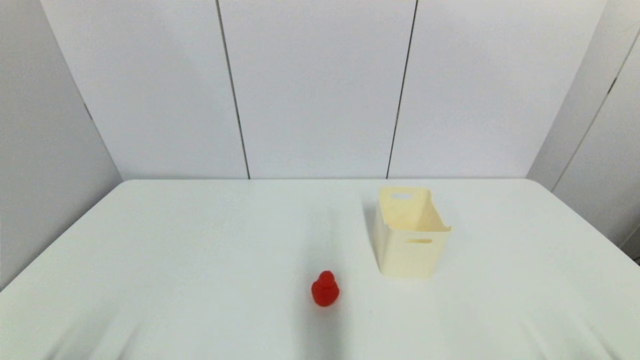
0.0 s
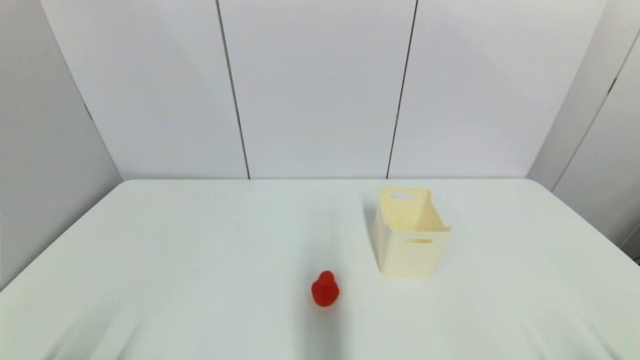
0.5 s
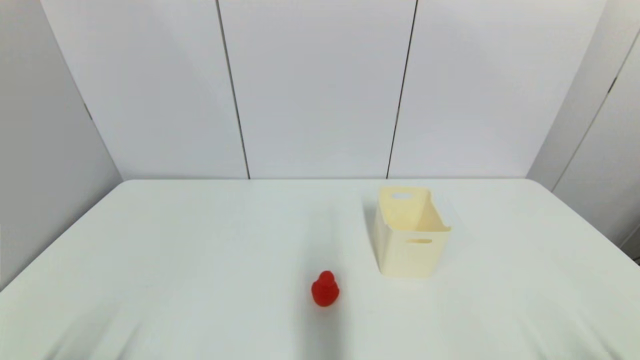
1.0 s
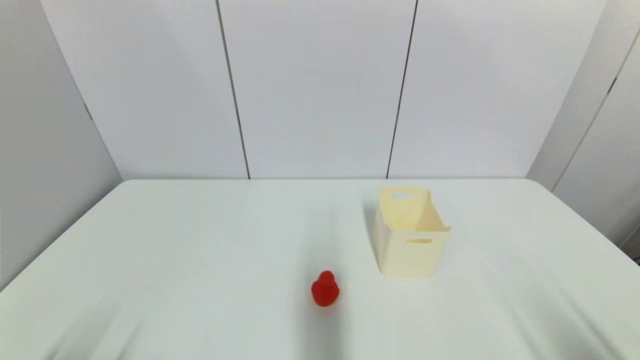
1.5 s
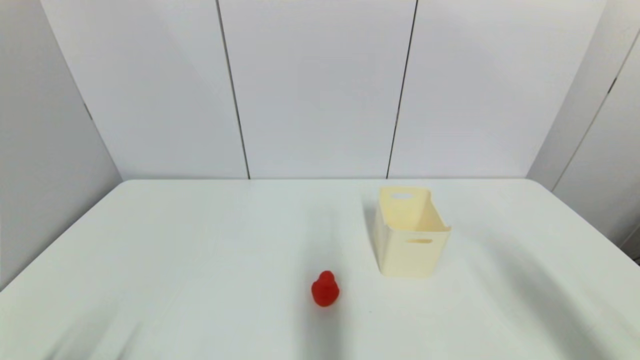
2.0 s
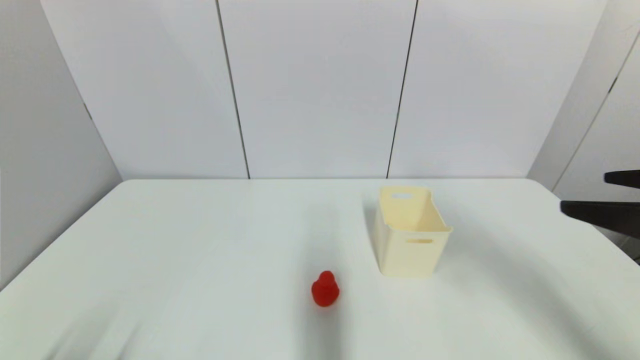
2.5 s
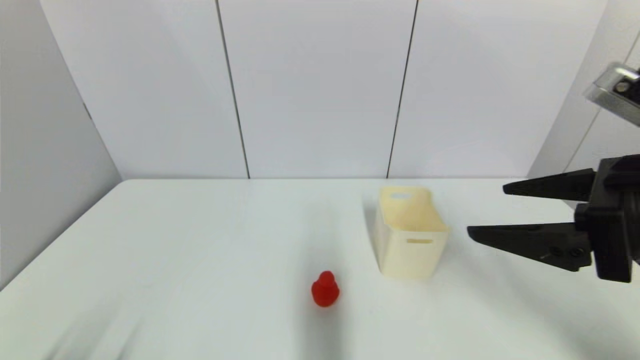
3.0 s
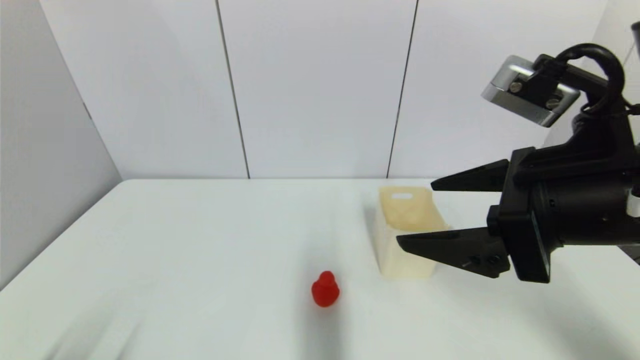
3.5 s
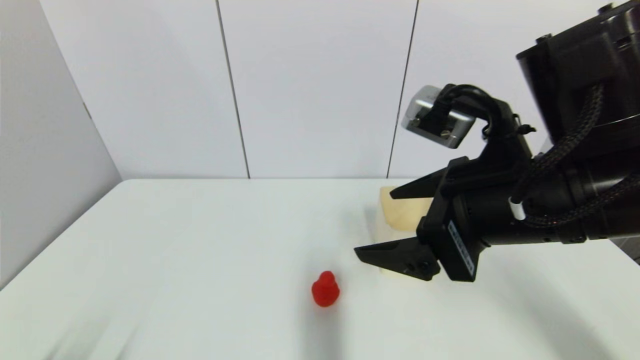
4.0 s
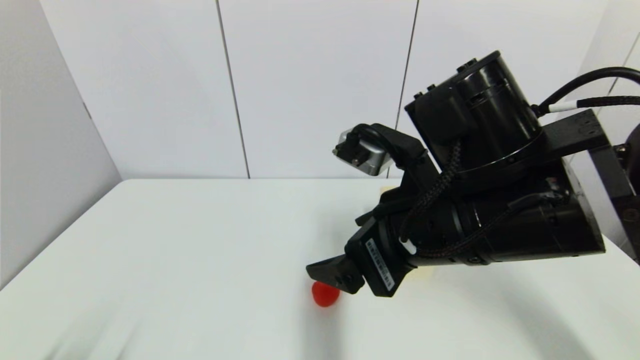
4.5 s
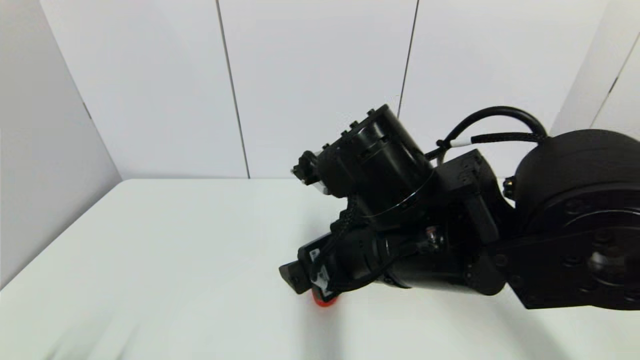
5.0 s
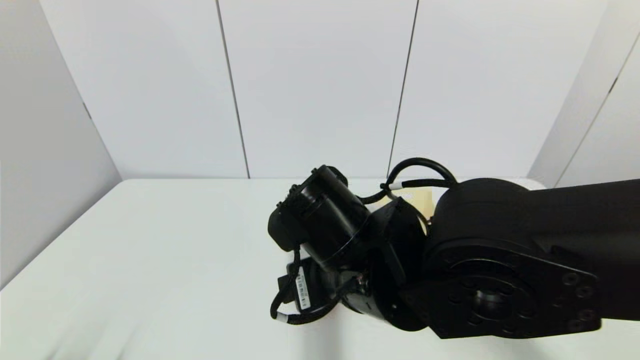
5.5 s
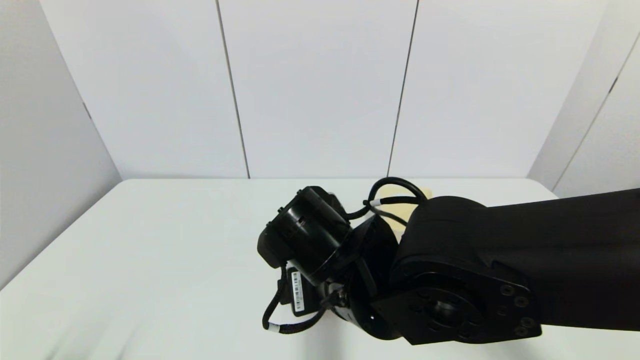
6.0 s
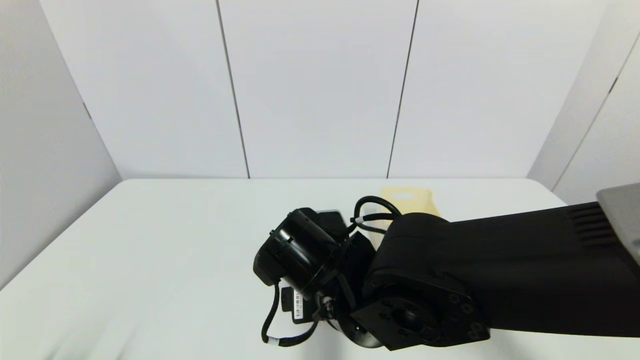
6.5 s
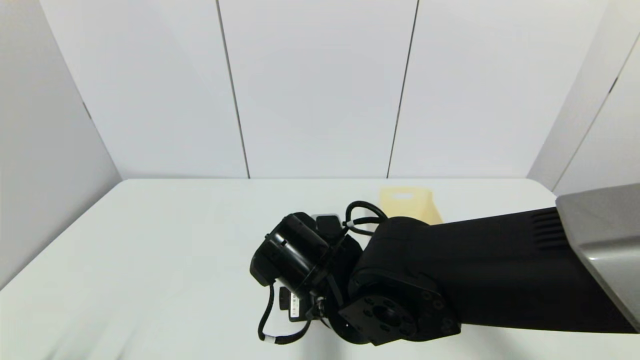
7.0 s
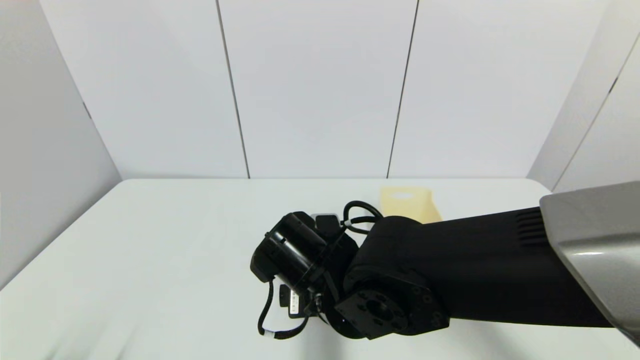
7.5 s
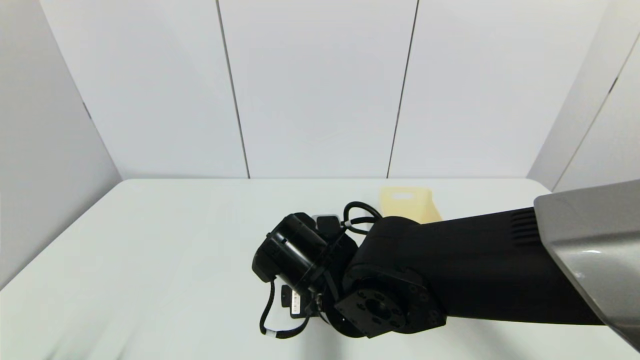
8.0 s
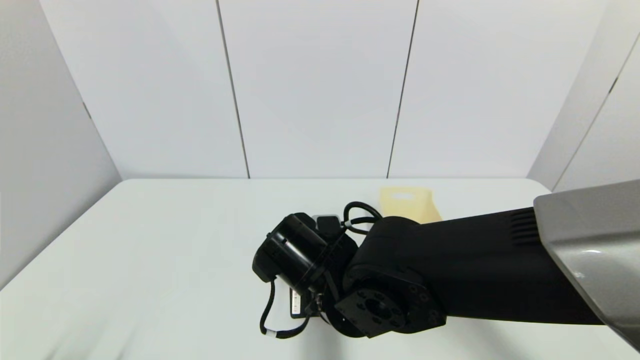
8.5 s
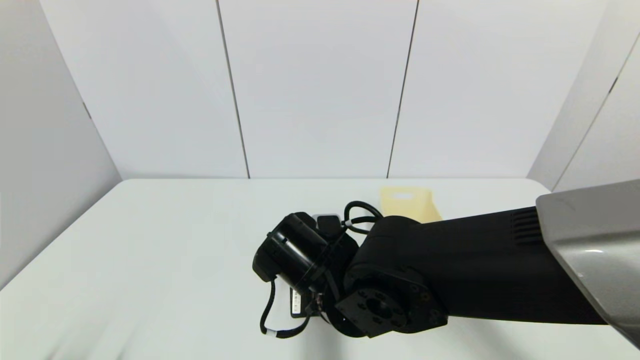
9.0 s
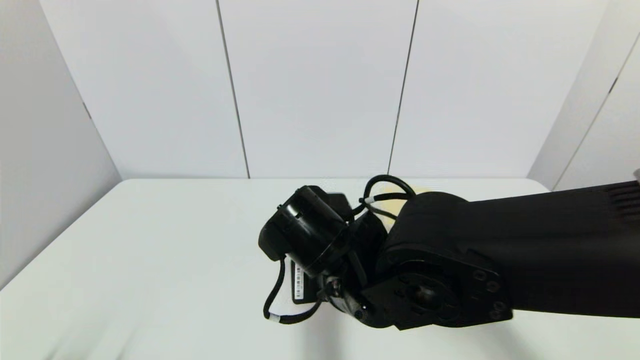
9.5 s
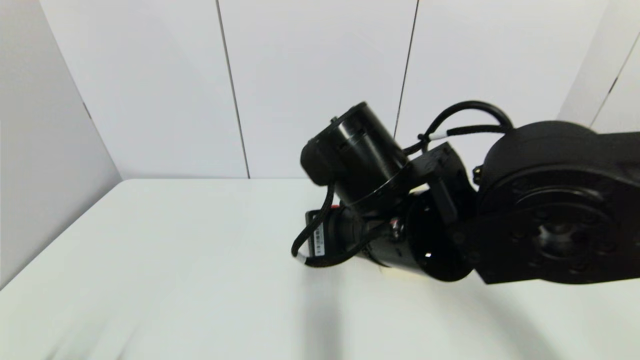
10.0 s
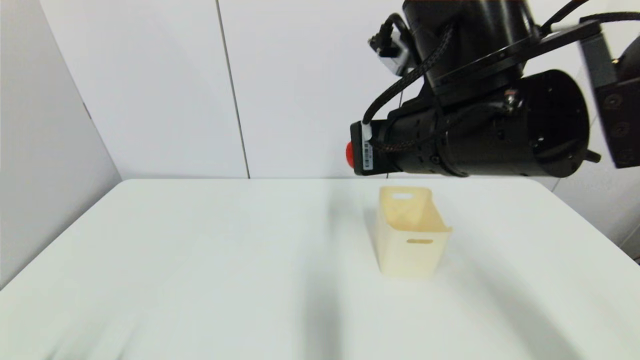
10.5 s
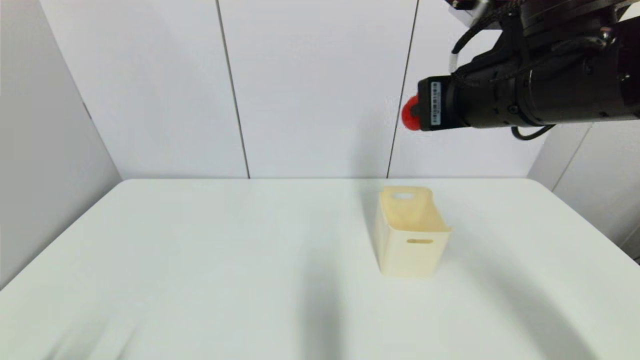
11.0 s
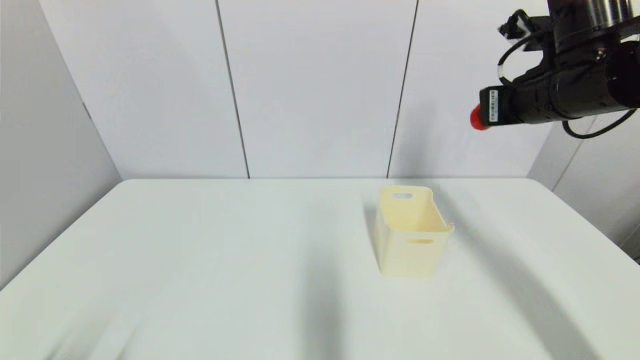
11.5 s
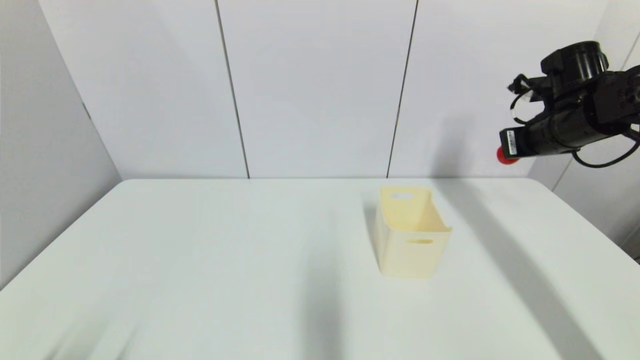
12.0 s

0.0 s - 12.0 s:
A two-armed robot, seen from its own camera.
Step, 2.5 s - 9.5 s: Grasp the red duck with right gripper.
0.0 s - 2.0 s: The right gripper moves upward, roughly 20 cm.
2.0 s - 4.0 s: The right gripper shifts roughly 25 cm to the left and forward.
4.0 s - 6.0 s: The right gripper goes about 15 cm to the left and downward.
6.0 s - 8.0 s: The grippers stay close to where they were, moving slightly.
8.0 s - 10.0 s: The right gripper travels upward by roughly 10 cm, and closes its fingers.
10.0 s - 12.0 s: The right gripper travels to the right and forward by some 35 cm.

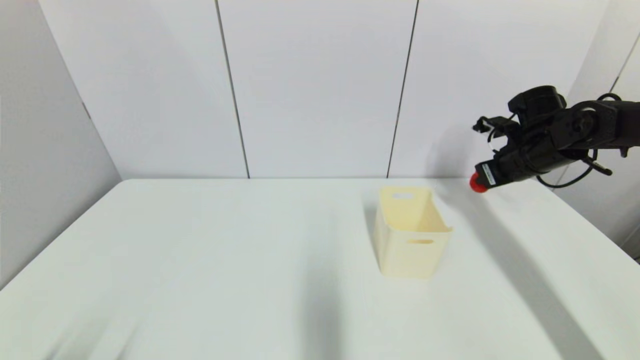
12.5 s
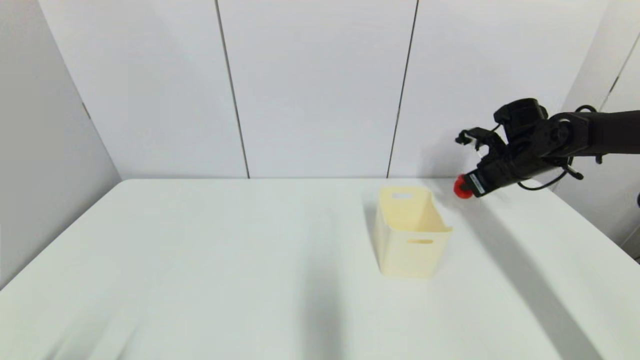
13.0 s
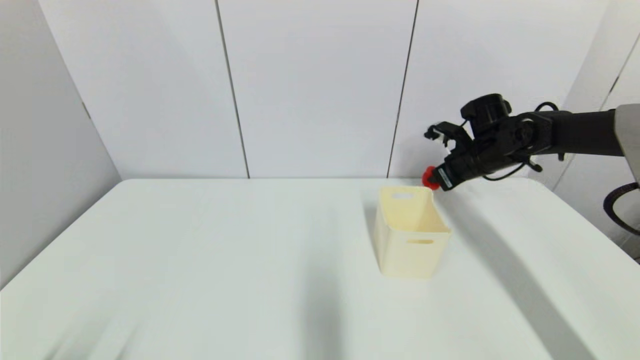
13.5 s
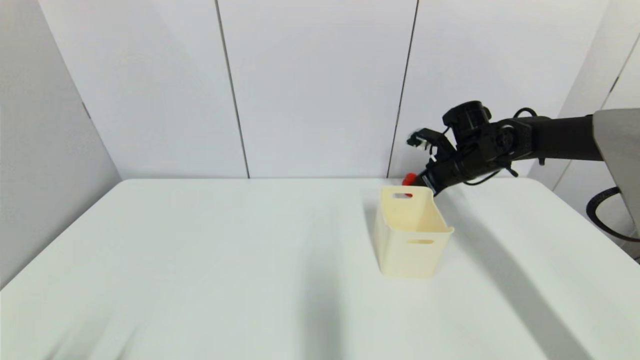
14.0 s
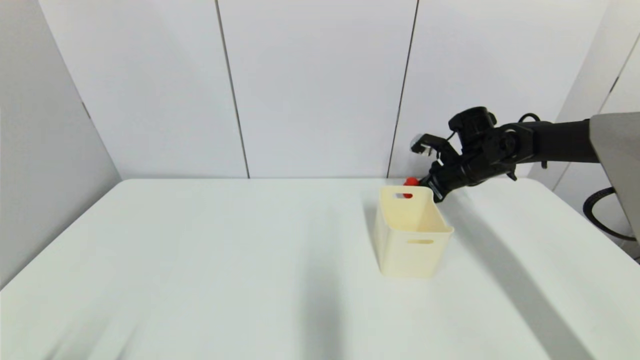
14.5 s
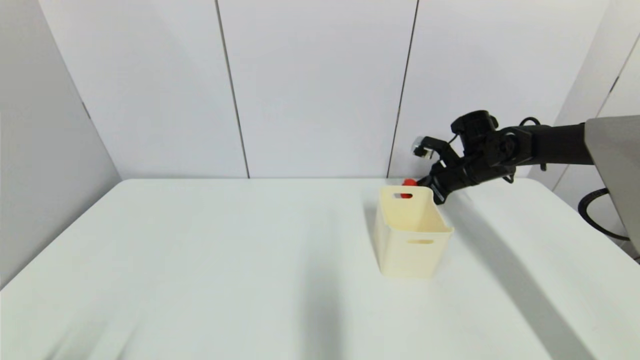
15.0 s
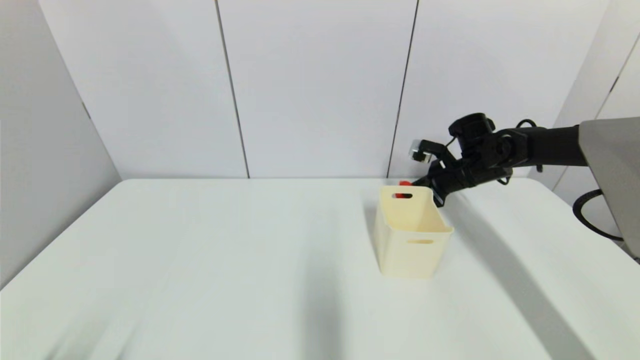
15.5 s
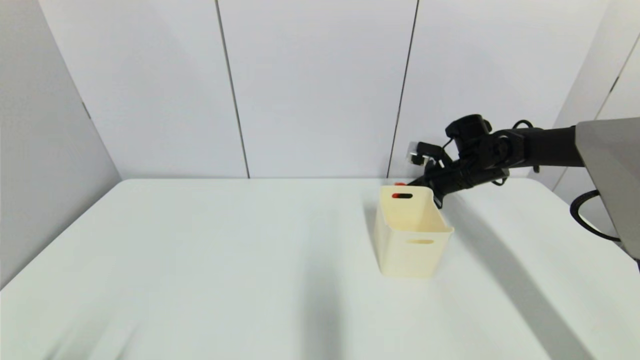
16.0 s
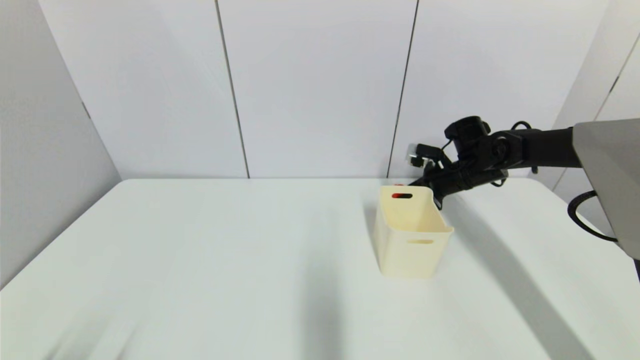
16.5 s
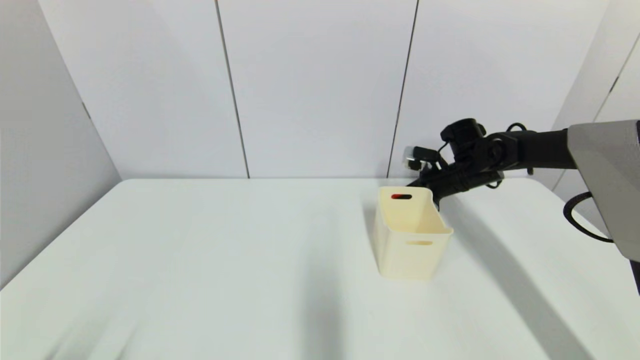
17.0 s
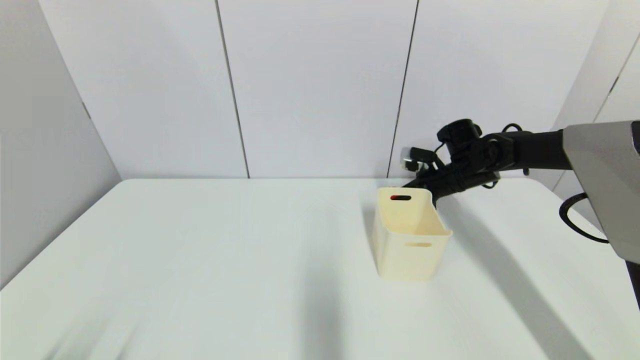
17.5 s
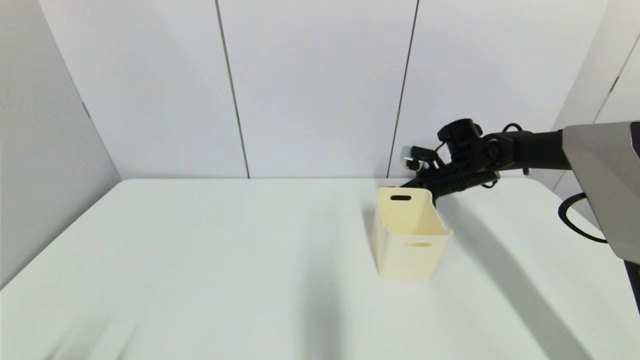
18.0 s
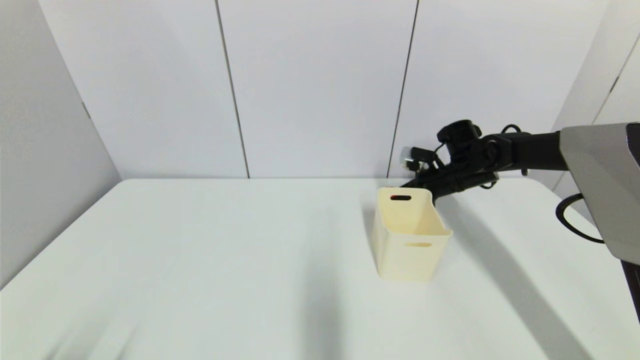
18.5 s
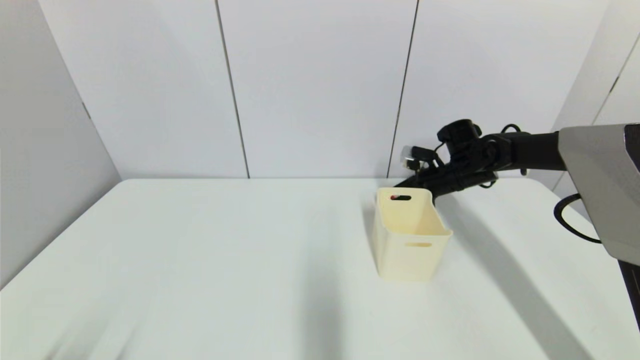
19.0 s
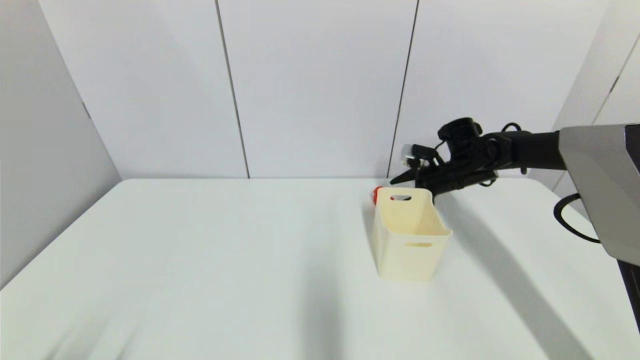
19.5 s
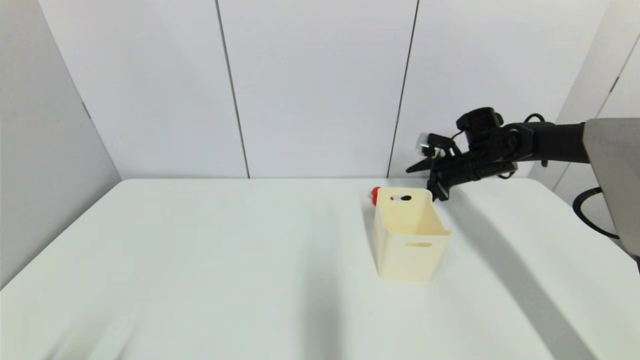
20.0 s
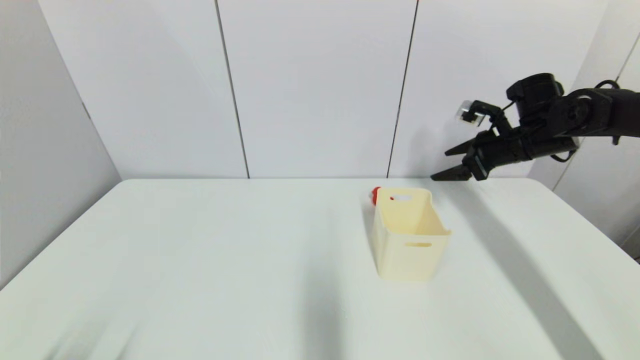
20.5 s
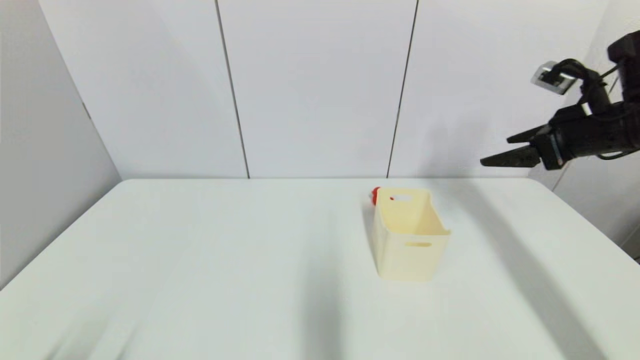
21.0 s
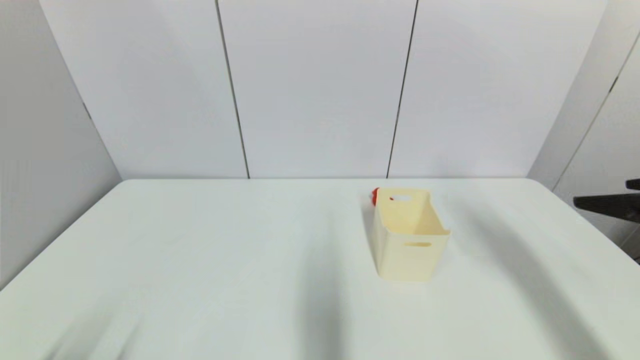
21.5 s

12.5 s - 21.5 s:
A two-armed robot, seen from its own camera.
Step, 12.5 s - 19.0 s: Place the red duck on the table with right gripper.
12.5 s - 14.5 s: The right gripper is displaced to the left by approximately 5 cm.
17.0 s - 19.5 s: The right gripper opens up.
19.5 s - 21.5 s: The right gripper travels backward and upward by approximately 35 cm.
